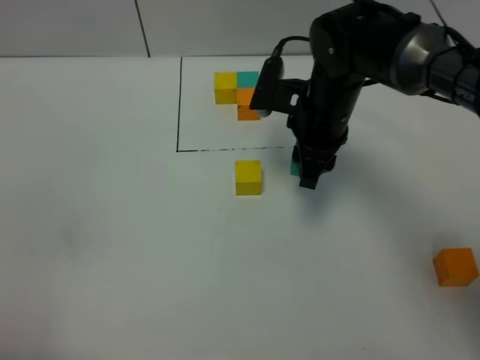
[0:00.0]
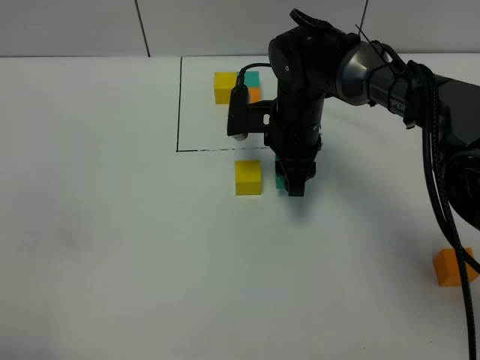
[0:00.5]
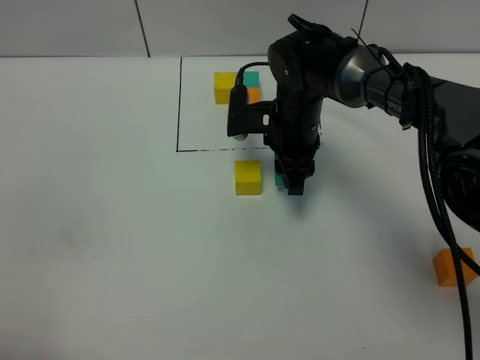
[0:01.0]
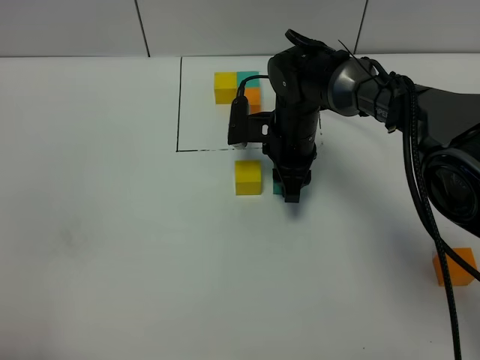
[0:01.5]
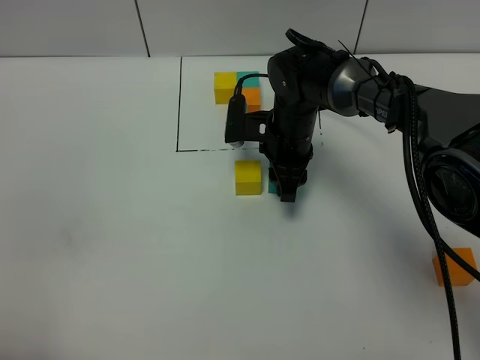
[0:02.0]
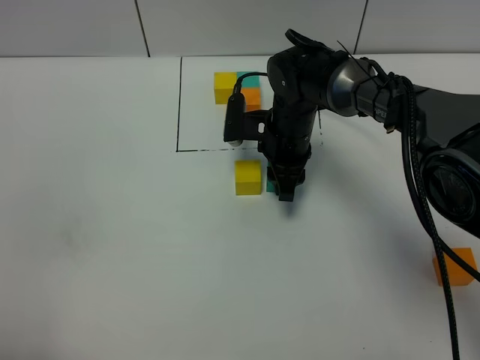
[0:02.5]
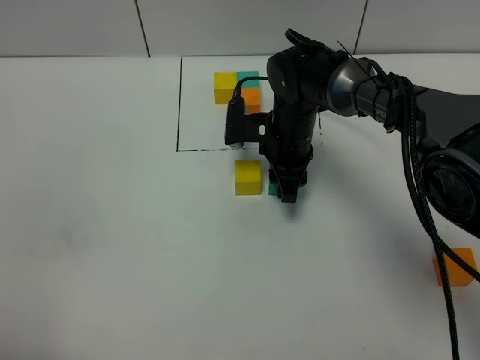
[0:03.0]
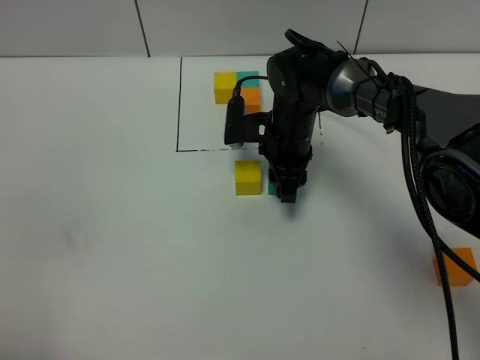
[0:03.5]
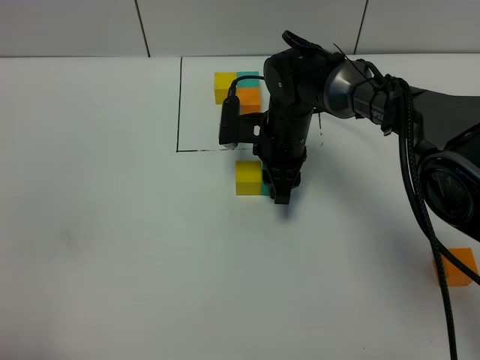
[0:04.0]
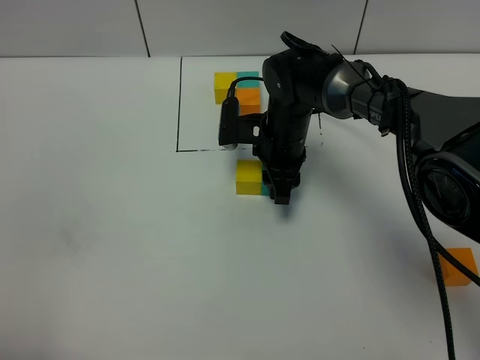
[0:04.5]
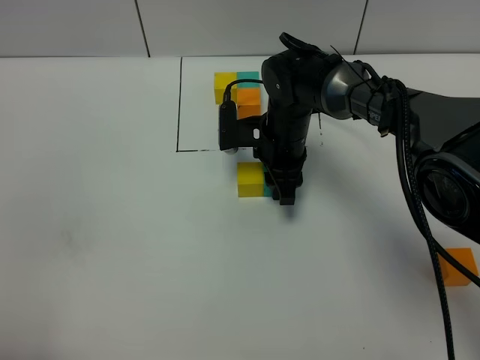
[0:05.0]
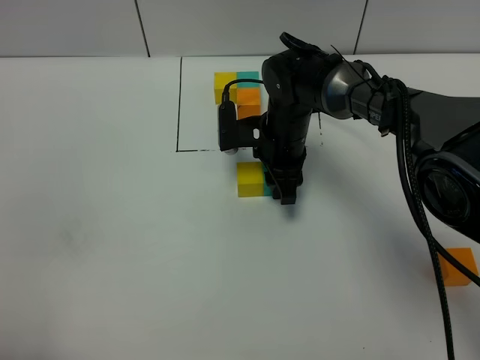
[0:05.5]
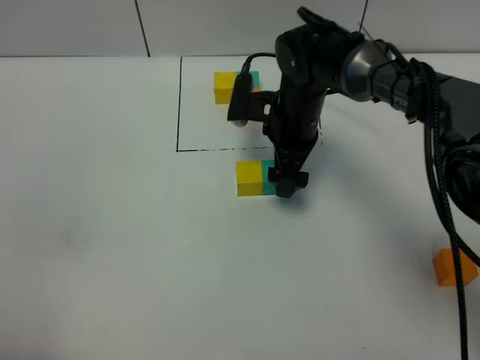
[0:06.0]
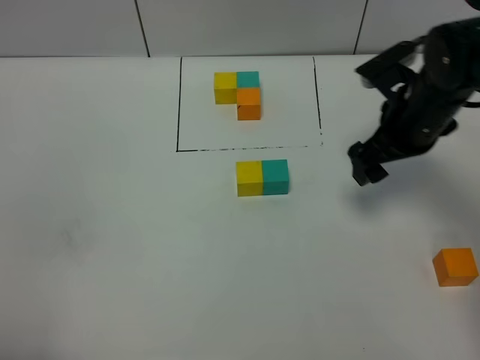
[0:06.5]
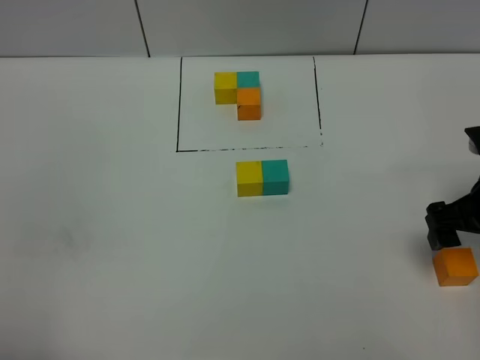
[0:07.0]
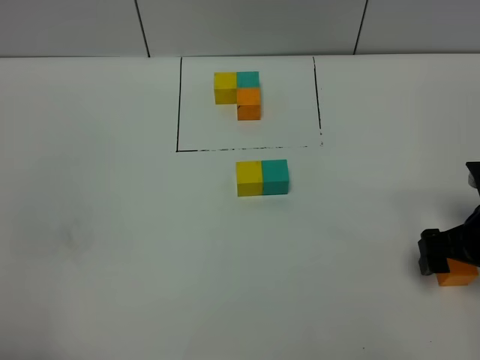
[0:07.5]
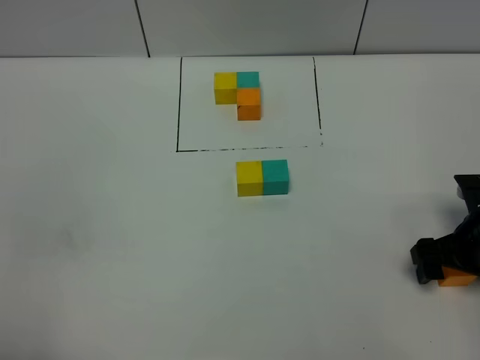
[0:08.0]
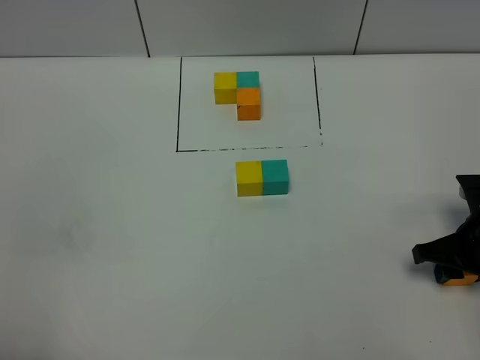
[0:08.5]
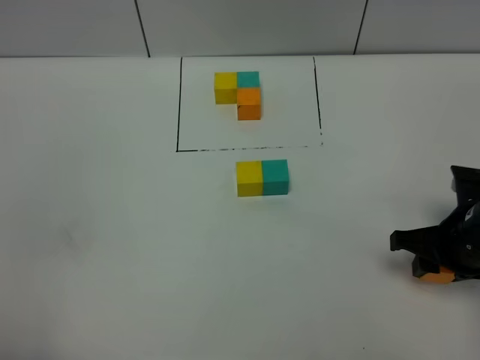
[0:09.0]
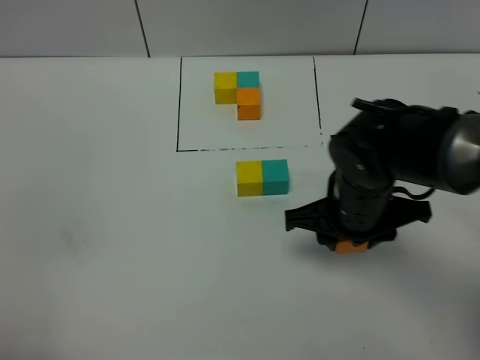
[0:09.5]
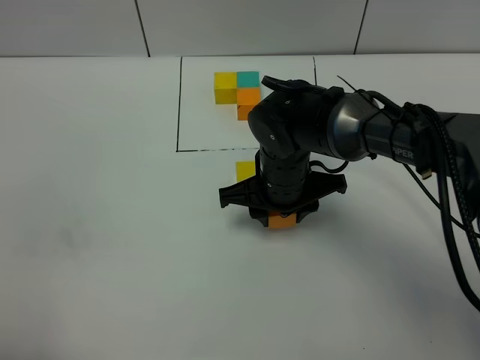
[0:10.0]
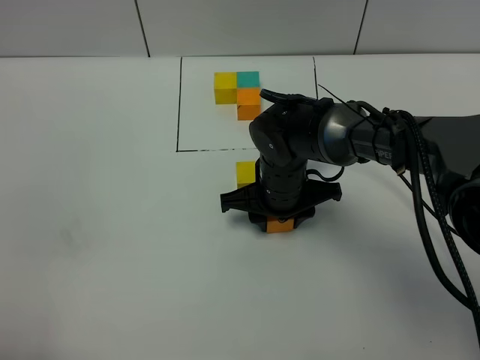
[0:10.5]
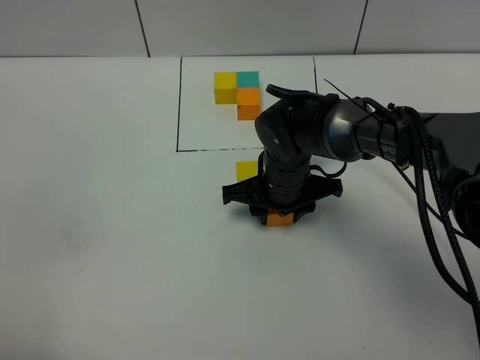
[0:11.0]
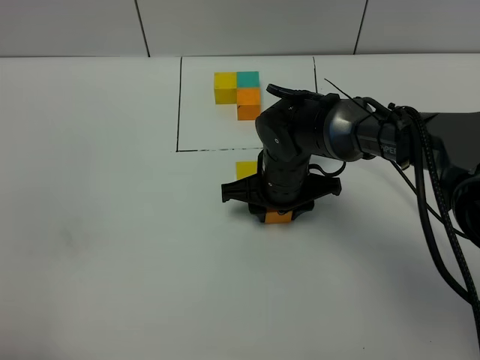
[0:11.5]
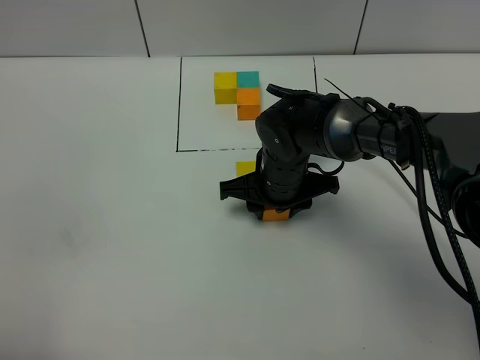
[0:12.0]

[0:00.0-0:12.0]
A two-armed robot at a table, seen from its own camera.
Task of the whole recording: According to the building block template in front, assemble the scattered blocks together.
Step, 0:00.0 to 0:04.0: Put the green build block on the right of the yellow build block.
0:00.0 to 0:02.0: The right gripper heads downward, covering some 5 cm.
0:02.0 to 0:04.0: Both grippers stay about where they are.
0:04.0 to 0:06.0: The right gripper moves about 5 cm, and opens up.
0:06.0 to 0:08.0: The right gripper goes roughly 25 cm to the right and backward.
0:08.0 to 0:10.0: The right gripper travels to the left by some 25 cm, and closes.
0:10.0 to 0:12.0: The grippers move only a little.

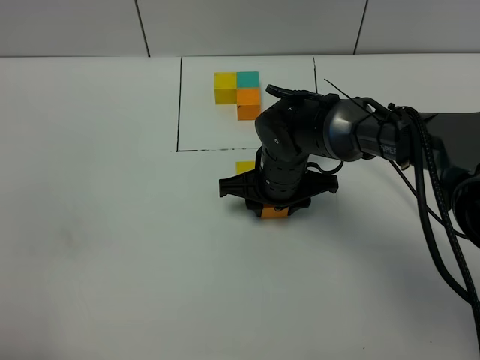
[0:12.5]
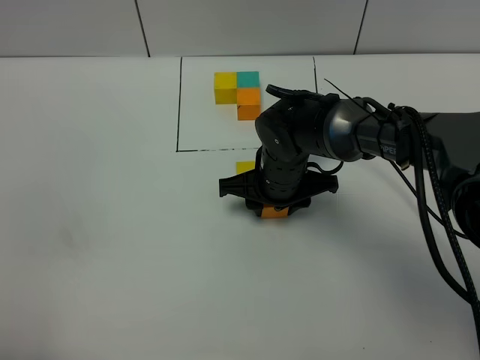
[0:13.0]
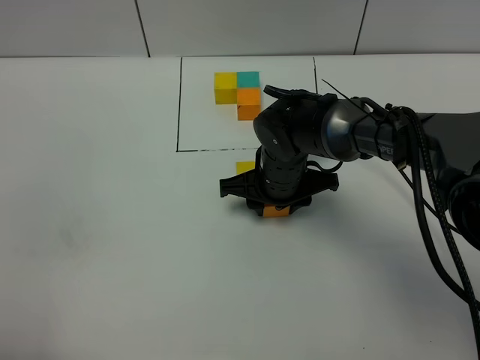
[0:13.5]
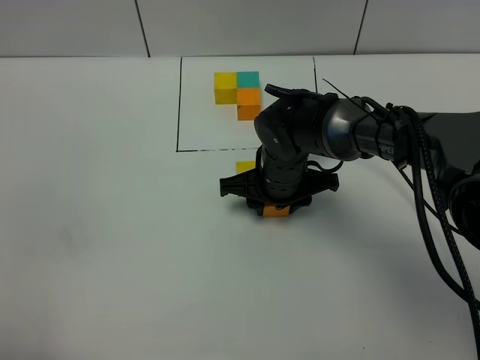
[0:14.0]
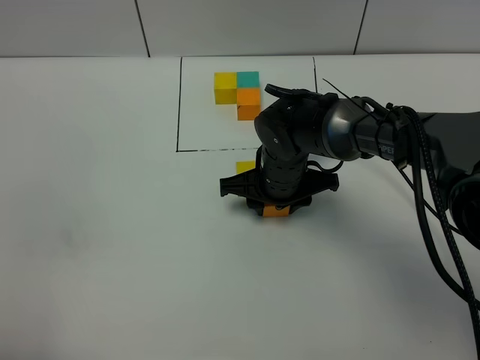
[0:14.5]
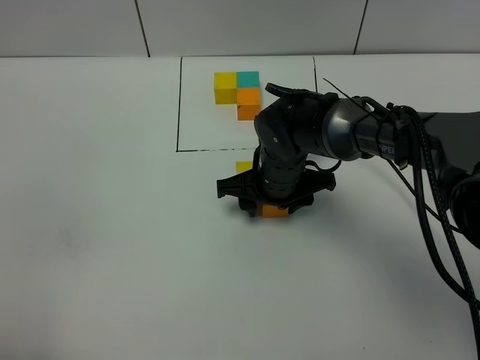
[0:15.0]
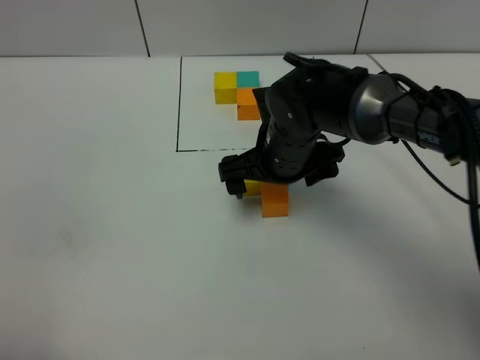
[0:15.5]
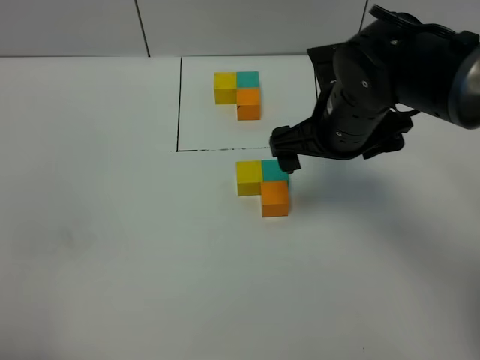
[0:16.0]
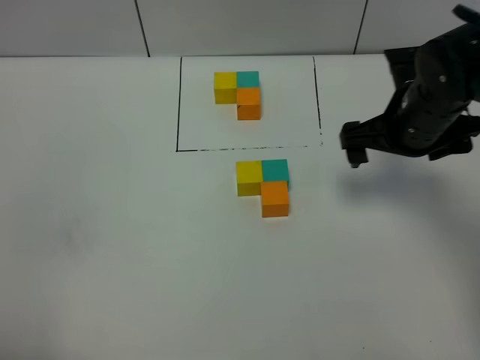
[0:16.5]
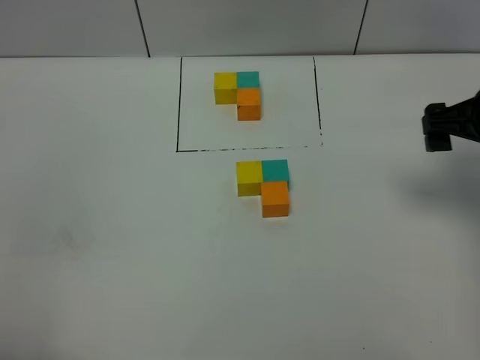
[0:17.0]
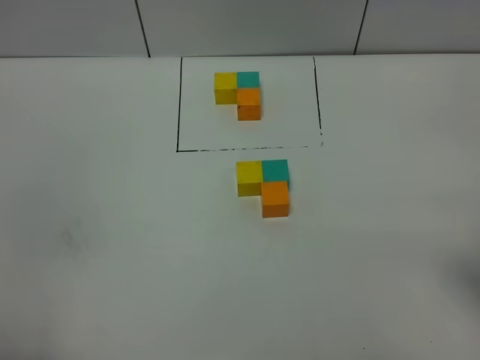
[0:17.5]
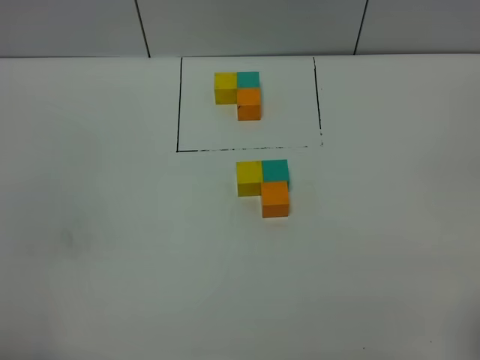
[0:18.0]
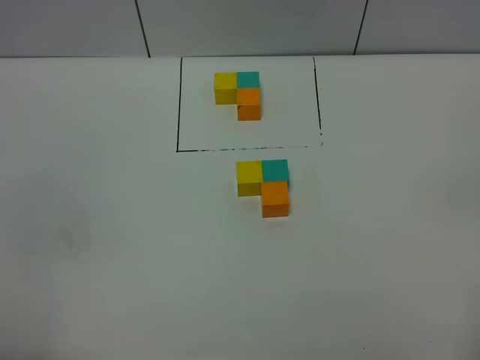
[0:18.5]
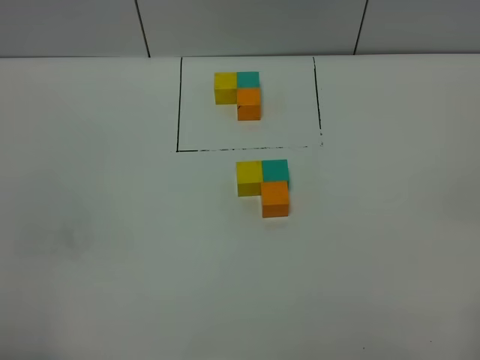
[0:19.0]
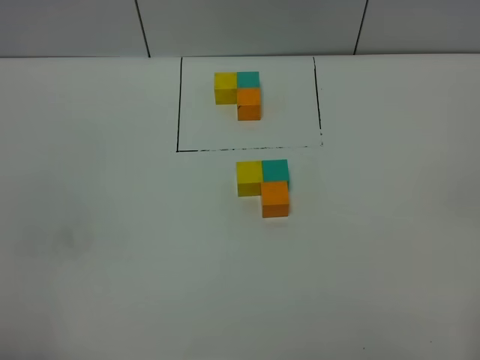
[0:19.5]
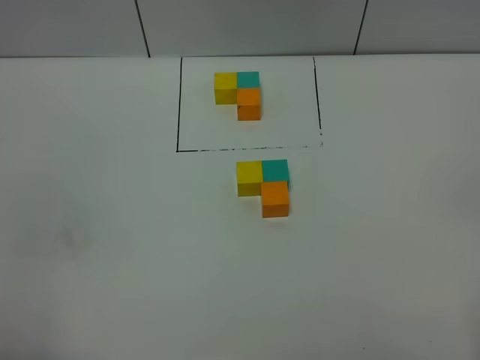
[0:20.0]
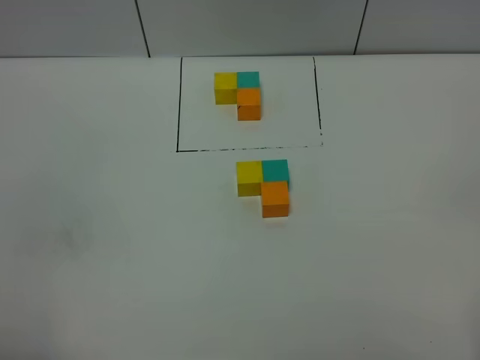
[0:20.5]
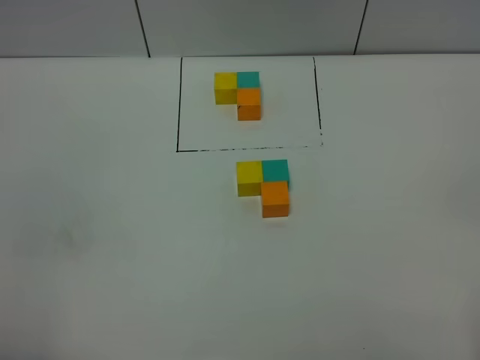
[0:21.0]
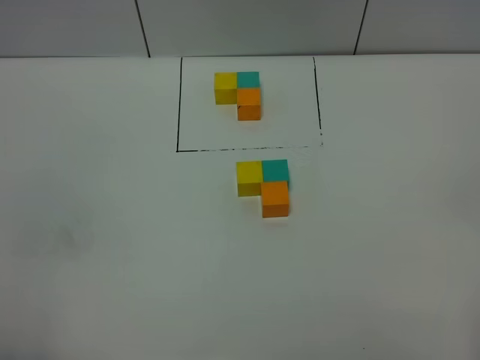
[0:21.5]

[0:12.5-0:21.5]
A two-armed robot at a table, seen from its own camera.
Task of the whole recording: According to the building block template in front, assemble the scattered blocks together.
Step, 0:12.5 to 0:15.0: Put the orange build block on the behind of the green build block.
0:12.5 to 0:14.5: Both grippers stay put.
0:14.5 to 0:17.0: The right gripper moves to the right and upward, approximately 30 cm, and opens.
0:17.0 to 0:19.5: The right gripper moves backward, about 30 cm.
0:19.5 to 0:21.5: Both grippers stay put.
